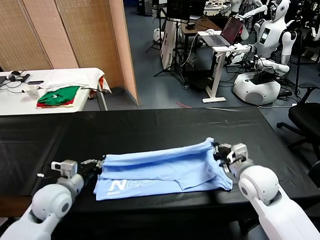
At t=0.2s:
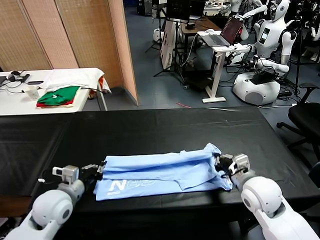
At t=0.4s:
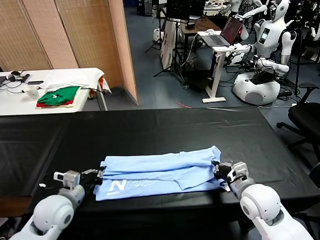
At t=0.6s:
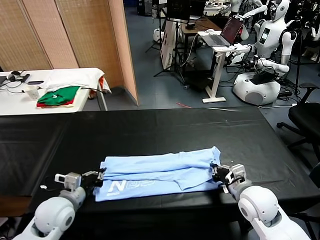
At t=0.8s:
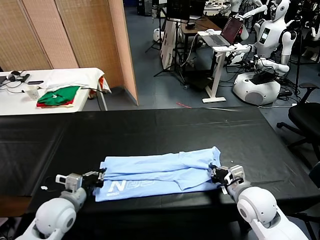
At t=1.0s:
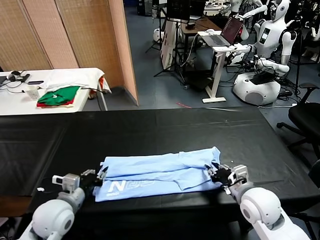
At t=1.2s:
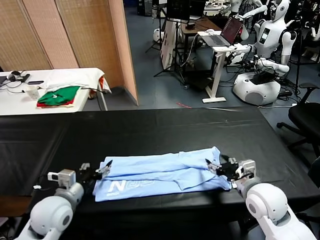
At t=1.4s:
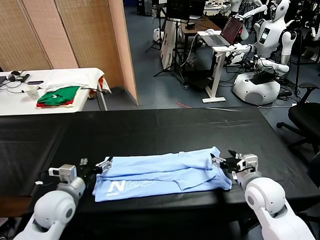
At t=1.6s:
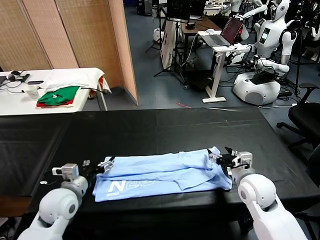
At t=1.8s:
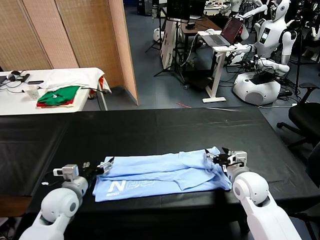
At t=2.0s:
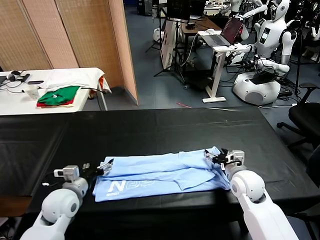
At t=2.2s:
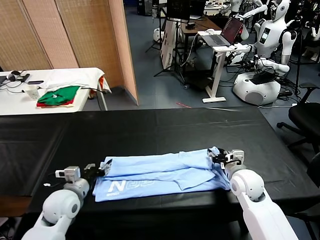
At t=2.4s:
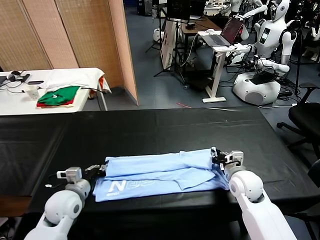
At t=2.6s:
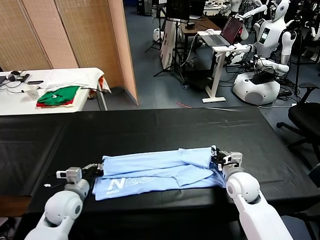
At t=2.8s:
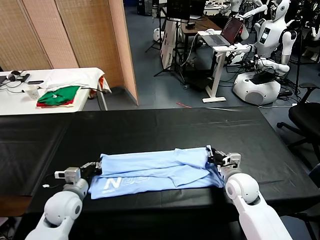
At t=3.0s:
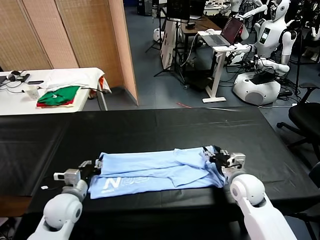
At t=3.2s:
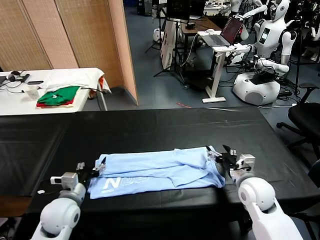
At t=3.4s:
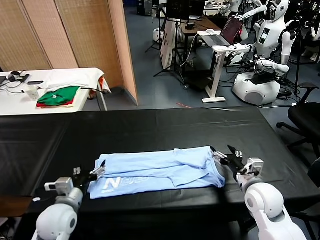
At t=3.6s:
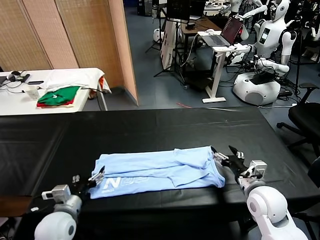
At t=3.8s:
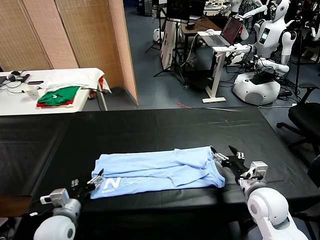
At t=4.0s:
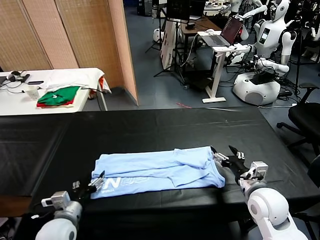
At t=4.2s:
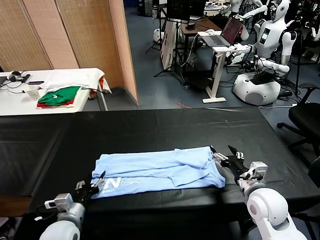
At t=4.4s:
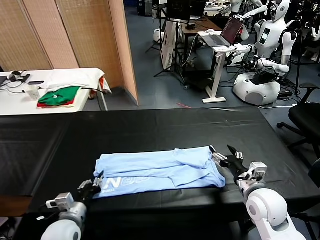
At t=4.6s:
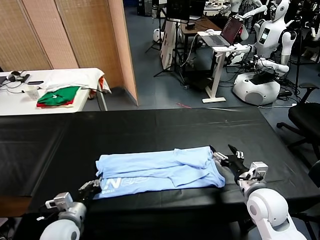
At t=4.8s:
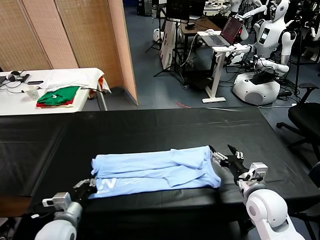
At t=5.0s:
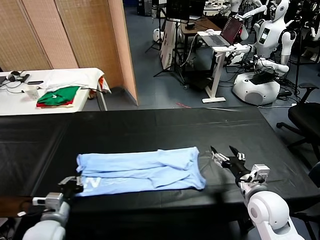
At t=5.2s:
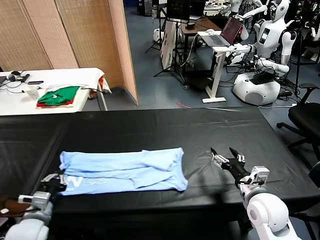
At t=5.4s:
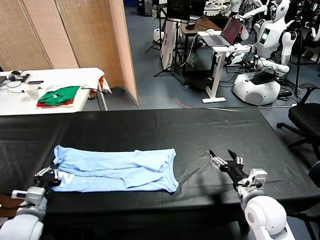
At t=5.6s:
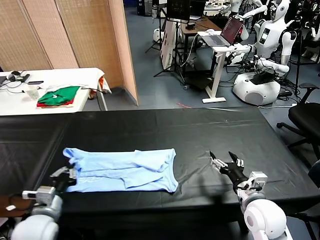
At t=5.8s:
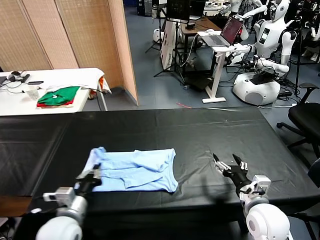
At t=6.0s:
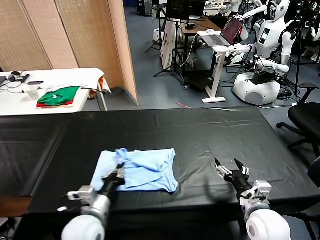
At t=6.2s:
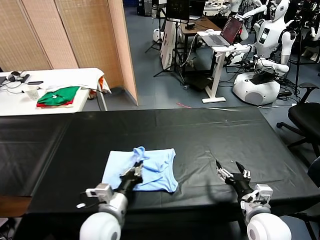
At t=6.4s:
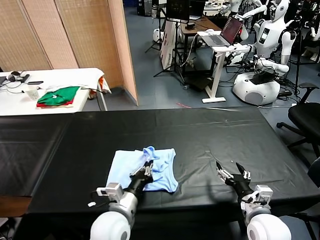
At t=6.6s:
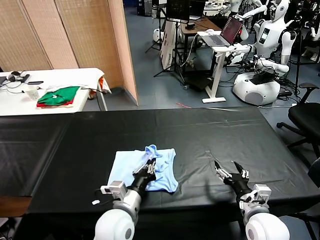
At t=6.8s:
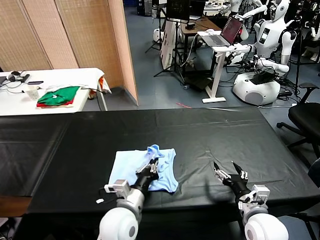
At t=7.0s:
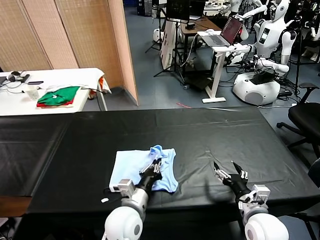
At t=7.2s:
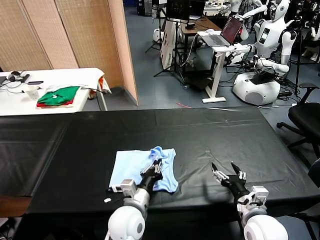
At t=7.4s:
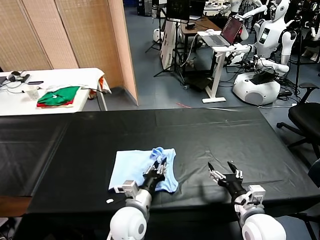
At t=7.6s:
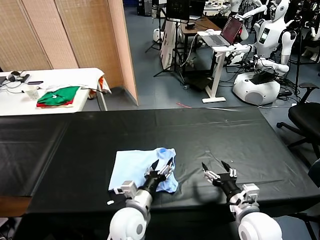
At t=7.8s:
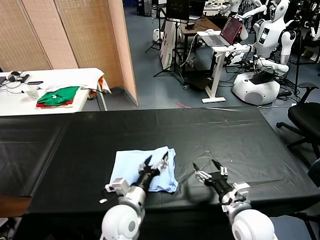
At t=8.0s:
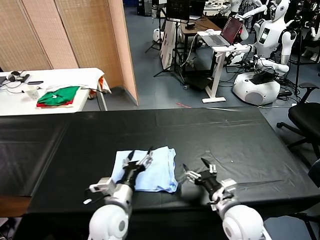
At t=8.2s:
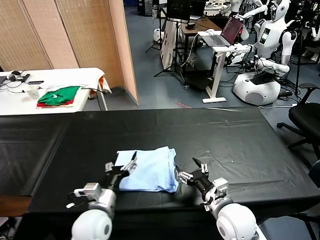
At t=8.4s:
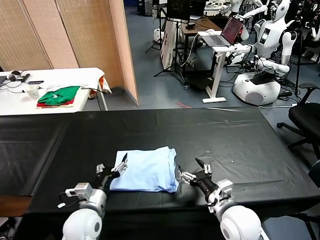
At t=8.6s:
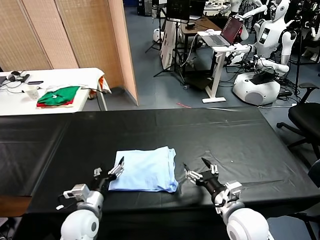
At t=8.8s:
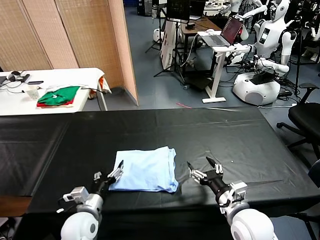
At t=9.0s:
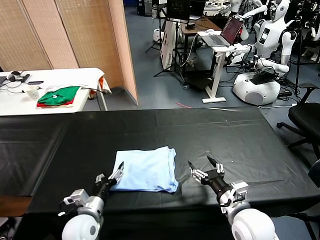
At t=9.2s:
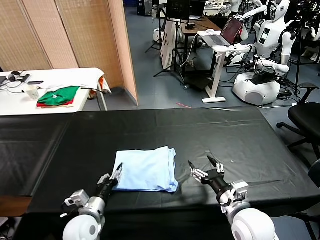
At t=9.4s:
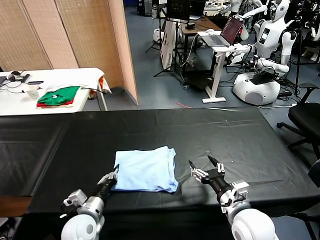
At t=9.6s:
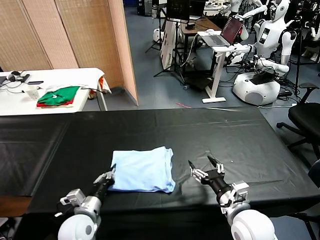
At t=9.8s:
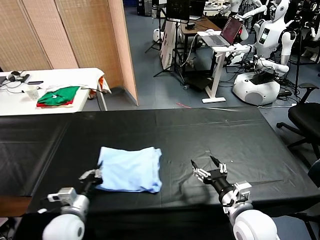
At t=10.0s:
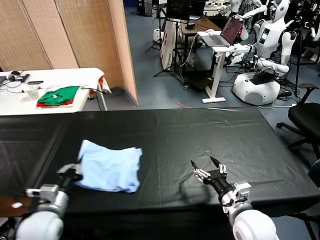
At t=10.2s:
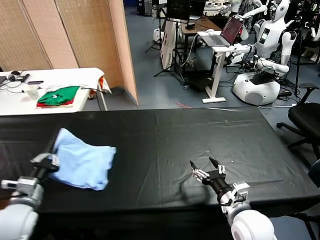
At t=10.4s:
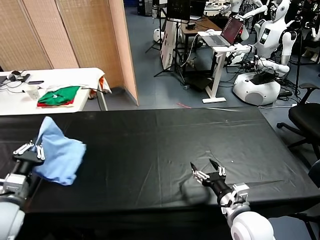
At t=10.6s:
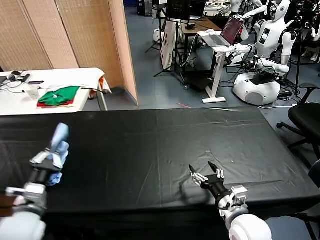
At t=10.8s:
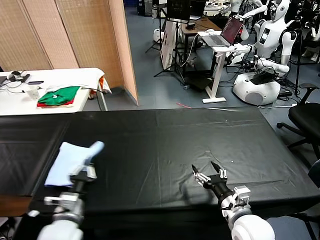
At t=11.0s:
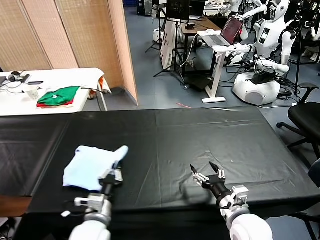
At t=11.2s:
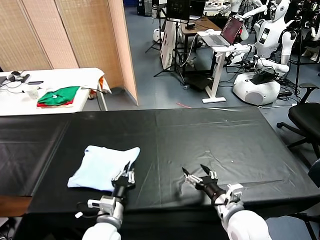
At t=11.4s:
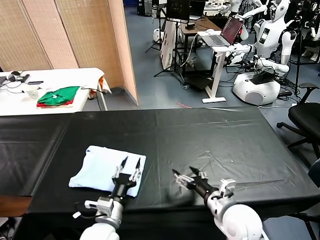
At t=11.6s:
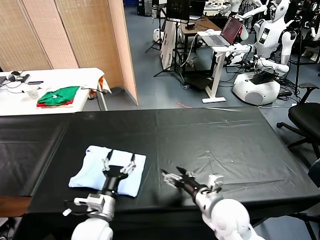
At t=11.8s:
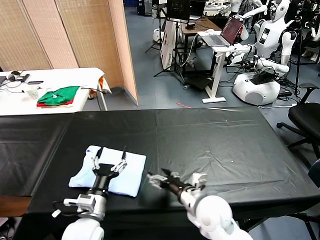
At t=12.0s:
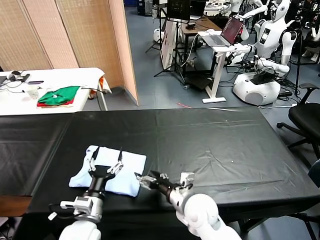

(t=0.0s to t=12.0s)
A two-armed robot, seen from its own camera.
Task of the whole recording: fold and organize the clothes.
Step, t=1.2s - t=4.4s: use the left gripper to clamp the left edge of the fabric.
Step, t=4.6s - t=7.6s: use the left gripper to drag the left edge of the fabric to the left and folds it over the right edge.
Step, t=7.8s - t=11.2s: Flip the folded clothes over with left gripper.
t=0.0s - t=1.6s: The left gripper opens up; the right gripper ends up some 5 cm from where it was, and opens its fingers.
t=1.6s - t=3.0s: The left gripper closes its fingers. Meanwhile the right gripper closes.
t=3.0s - t=4.4s: Both grippers move backward, roughly 5 cm. The right gripper opens; the left gripper opens.
t=4.4s - t=6.0s: The left gripper heads to the right and upward, covering approximately 10 cm, and closes its fingers, while the right gripper heads backward, covering roughly 5 cm.
t=6.0s - t=7.6s: The left gripper is displaced to the right by about 10 cm.
t=7.6s - t=9.0s: The left gripper goes roughly 15 cm to the left, and opens its fingers.
t=9.0s - t=10.4s: The left gripper travels to the left and upward by some 20 cm, and closes.
t=10.4s - t=12.0s: The left gripper goes about 20 cm to the right and downward, and opens its fingers; the right gripper travels to the left and forward by some 15 cm.

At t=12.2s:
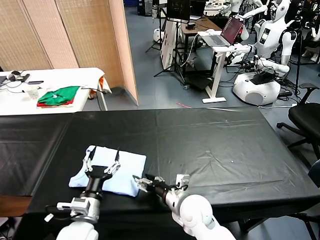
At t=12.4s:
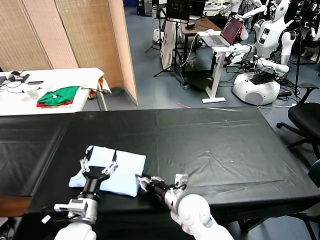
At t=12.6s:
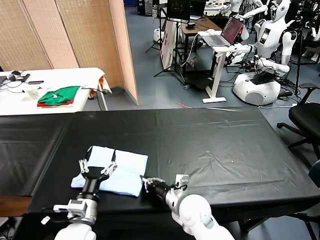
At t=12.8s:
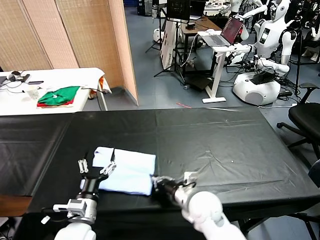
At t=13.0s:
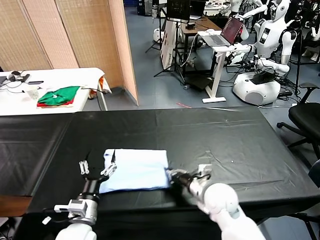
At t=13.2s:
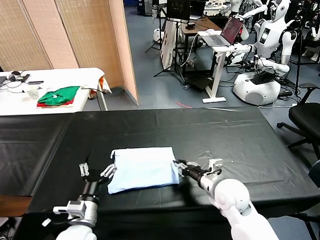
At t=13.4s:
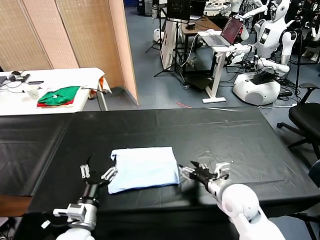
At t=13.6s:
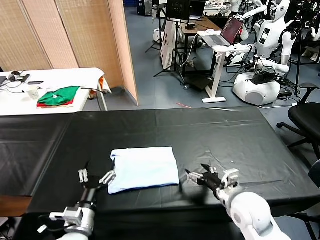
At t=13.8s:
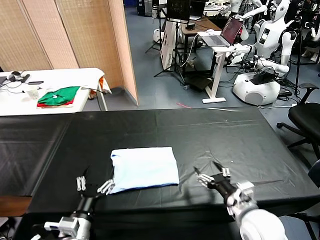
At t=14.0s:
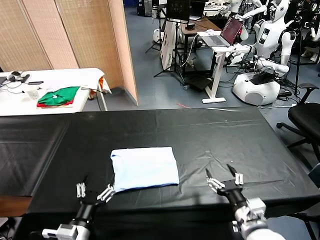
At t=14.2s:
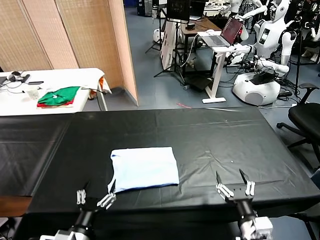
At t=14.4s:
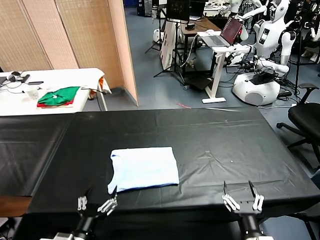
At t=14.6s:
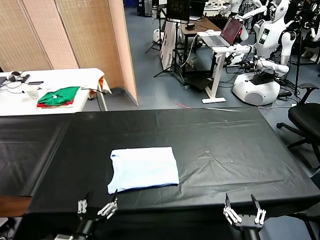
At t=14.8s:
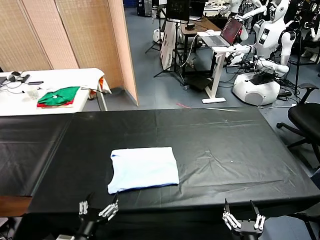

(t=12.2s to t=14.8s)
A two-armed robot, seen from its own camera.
Task of the whole recording: fold and organize the clothes.
Step, t=12.2s - t=13.2s: Drag the clothes to the center of the table.
t=12.2s - t=13.4s: The right gripper travels to the right by about 10 cm, and closes and opens again.
t=13.4s - t=14.8s: The right gripper goes some 25 cm backward, and opens, while the left gripper shifts roughly 10 cm backward.
